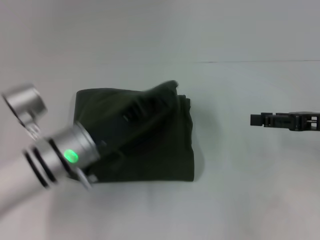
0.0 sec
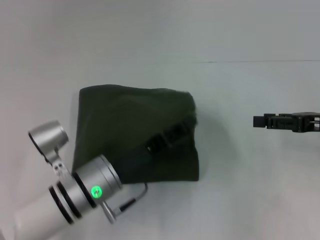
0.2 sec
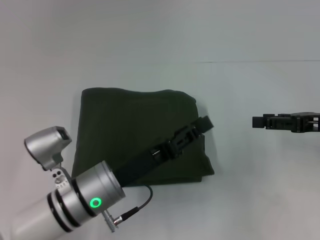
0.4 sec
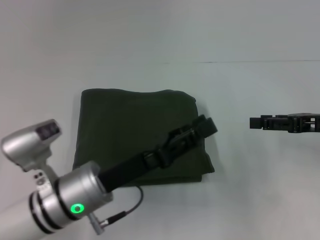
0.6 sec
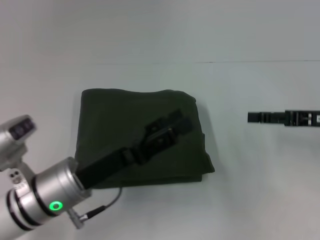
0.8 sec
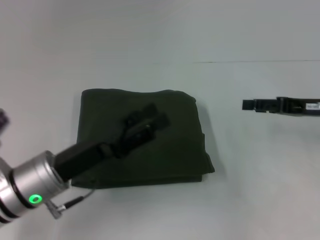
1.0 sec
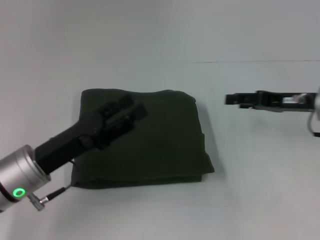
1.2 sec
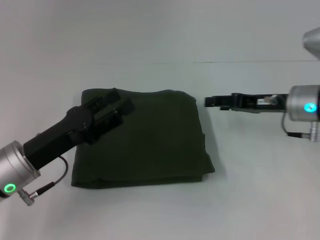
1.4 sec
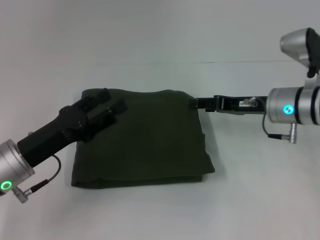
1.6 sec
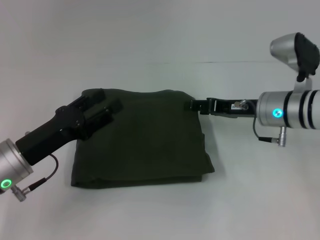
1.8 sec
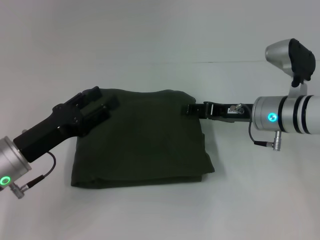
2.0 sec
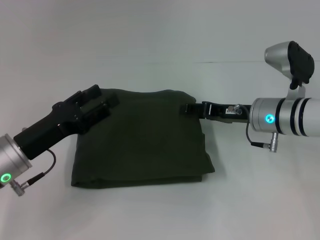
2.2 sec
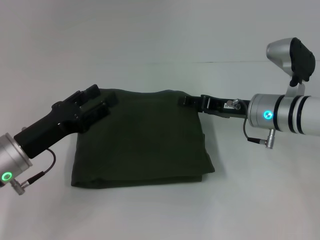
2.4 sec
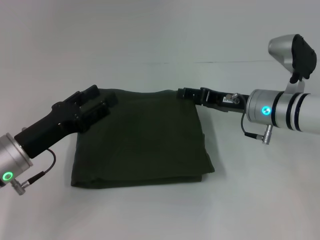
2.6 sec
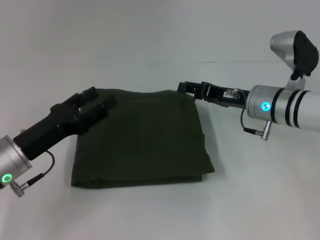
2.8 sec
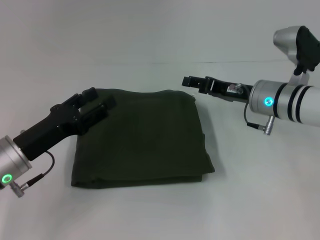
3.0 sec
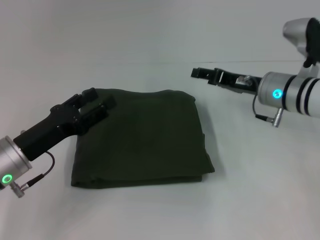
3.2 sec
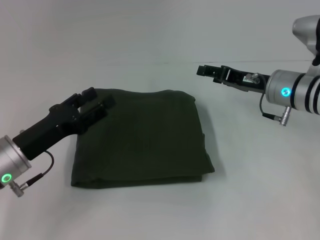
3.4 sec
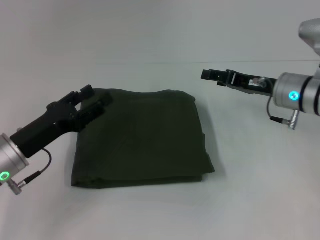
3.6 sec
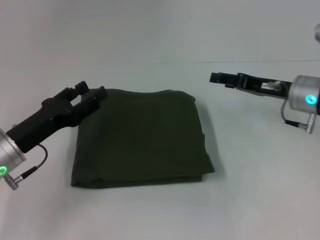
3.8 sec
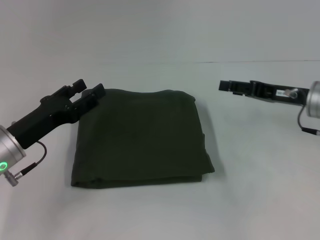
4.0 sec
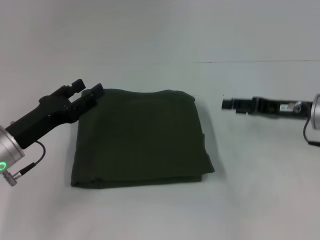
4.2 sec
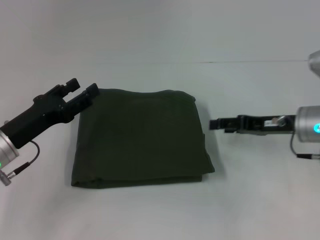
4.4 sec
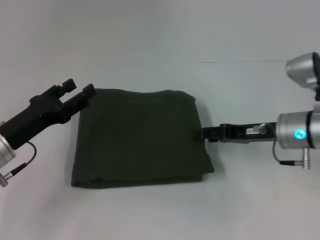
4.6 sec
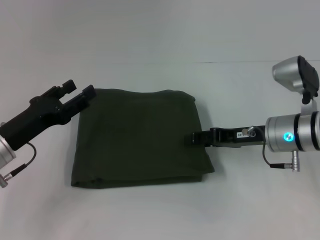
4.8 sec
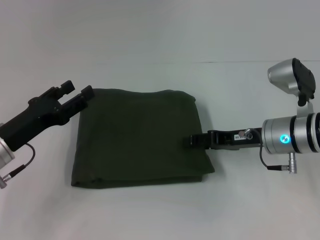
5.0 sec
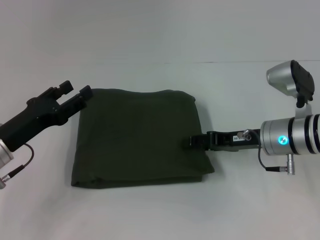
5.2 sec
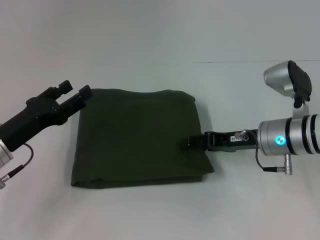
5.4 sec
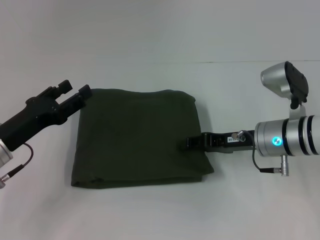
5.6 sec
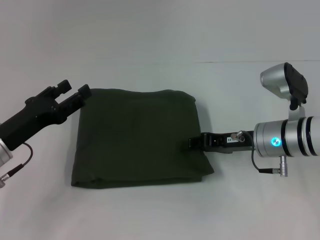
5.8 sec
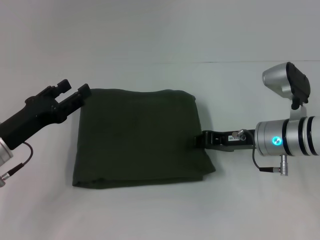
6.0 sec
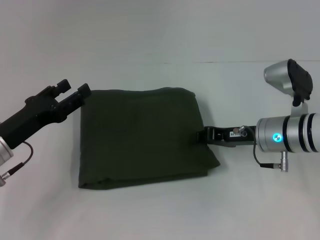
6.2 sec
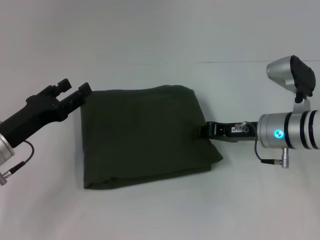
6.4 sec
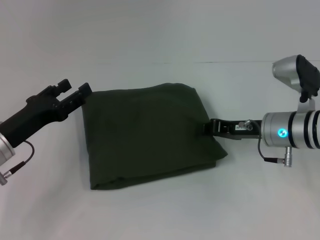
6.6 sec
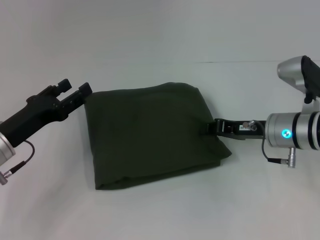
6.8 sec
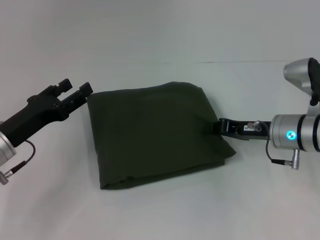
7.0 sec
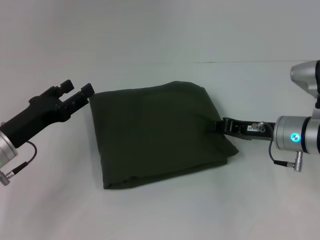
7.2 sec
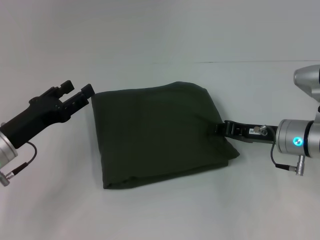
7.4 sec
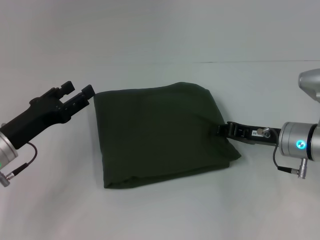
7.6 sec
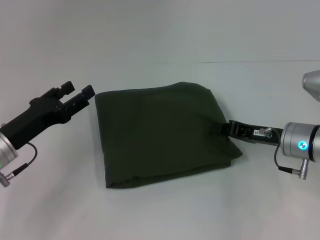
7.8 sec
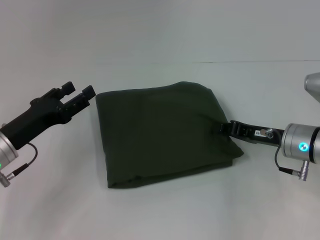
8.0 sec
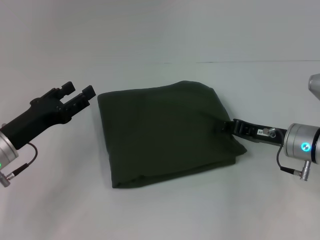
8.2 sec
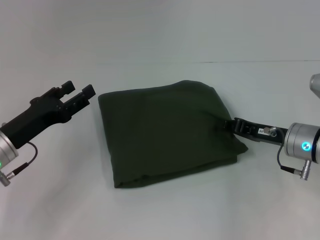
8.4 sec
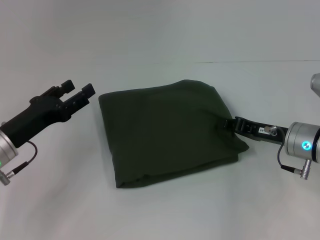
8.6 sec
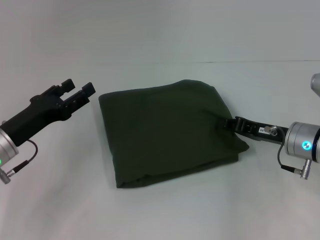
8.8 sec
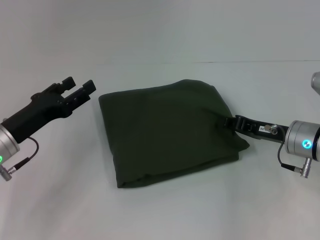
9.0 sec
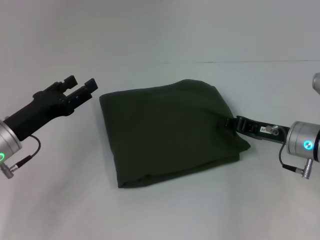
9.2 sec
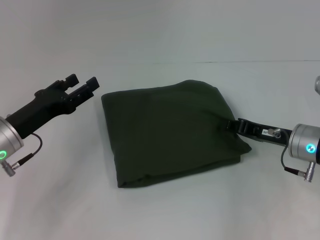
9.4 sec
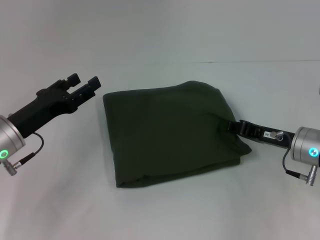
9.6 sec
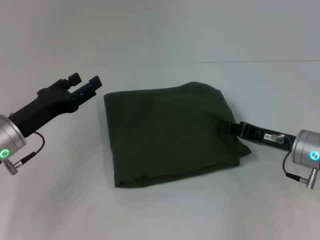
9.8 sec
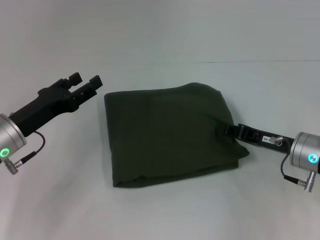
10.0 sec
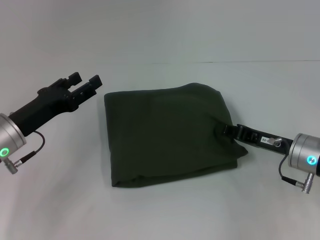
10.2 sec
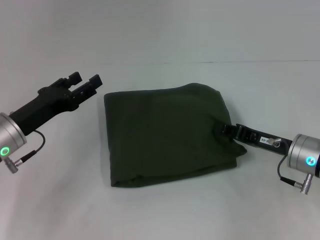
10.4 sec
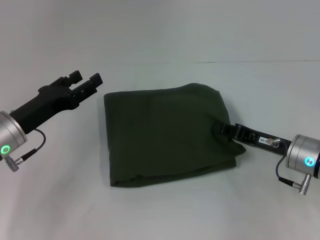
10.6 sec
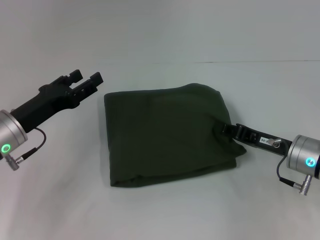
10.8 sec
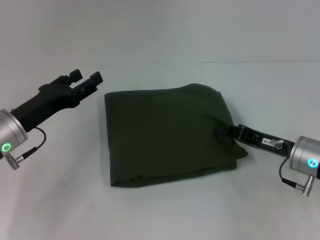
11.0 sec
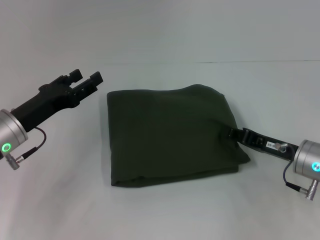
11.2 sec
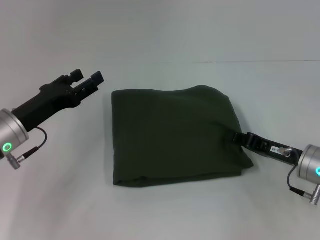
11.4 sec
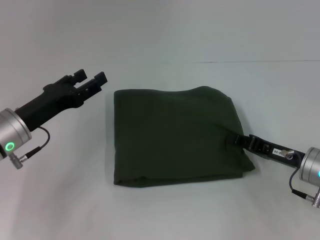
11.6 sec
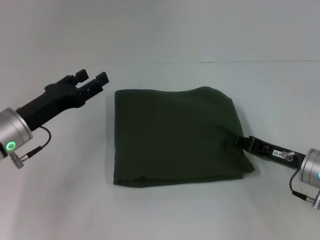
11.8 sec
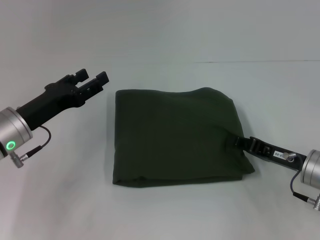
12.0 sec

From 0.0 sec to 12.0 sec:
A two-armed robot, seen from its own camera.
From 0.0 sec to 1.6 sec: The right gripper moves to the left and forward, roughly 10 cm; the left gripper heads to the left, covering roughly 5 cm, and opens.
From 1.6 sec to 3.0 sec: The grippers move only a little.
From 3.0 sec to 4.4 sec: The right gripper travels to the right by some 5 cm.
From 4.4 sec to 6.0 sec: The right gripper heads to the left, covering some 5 cm.
From 6.0 sec to 9.0 sec: The grippers move only a little.
From 9.0 sec to 12.0 sec: The grippers move only a little.

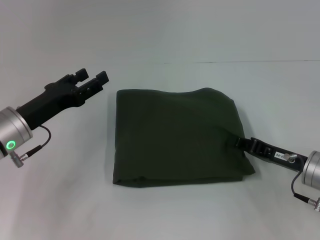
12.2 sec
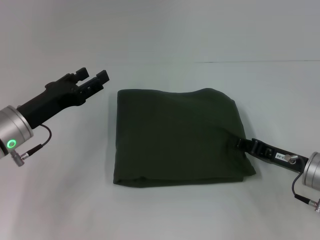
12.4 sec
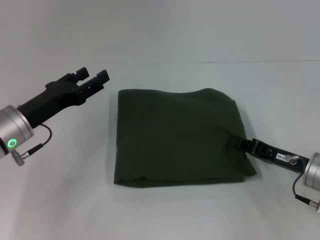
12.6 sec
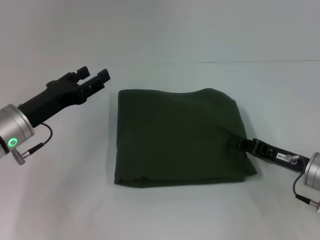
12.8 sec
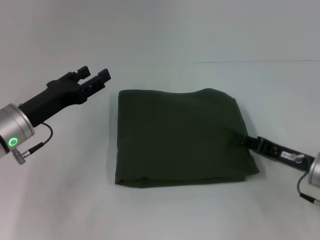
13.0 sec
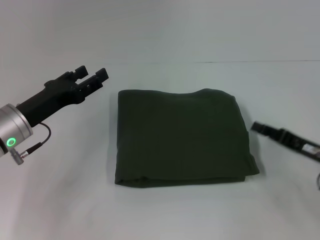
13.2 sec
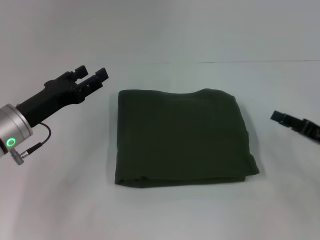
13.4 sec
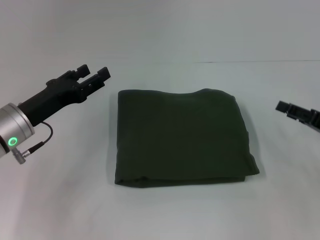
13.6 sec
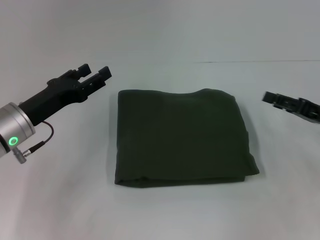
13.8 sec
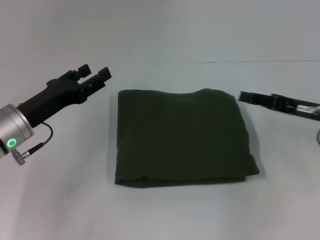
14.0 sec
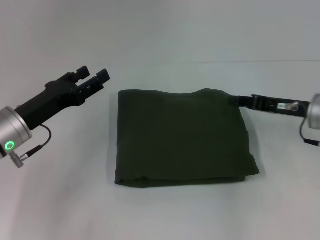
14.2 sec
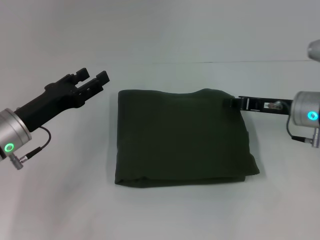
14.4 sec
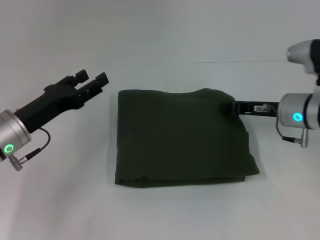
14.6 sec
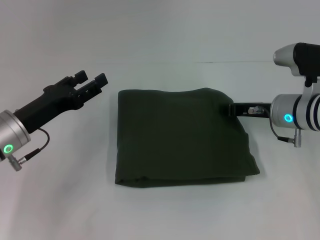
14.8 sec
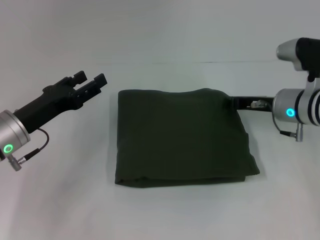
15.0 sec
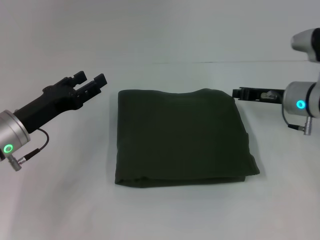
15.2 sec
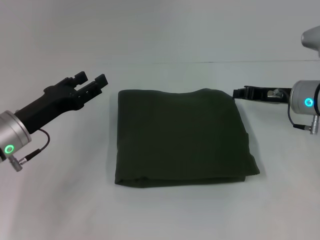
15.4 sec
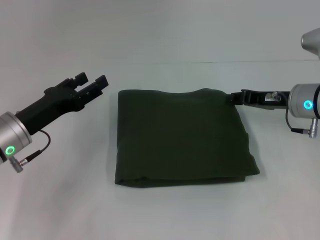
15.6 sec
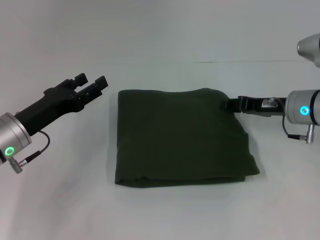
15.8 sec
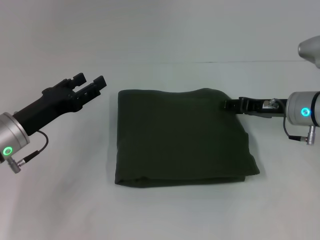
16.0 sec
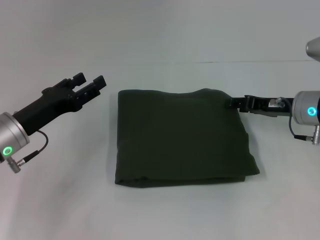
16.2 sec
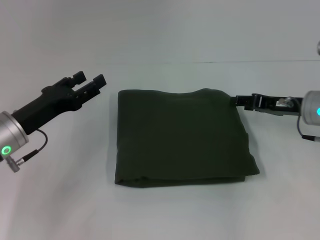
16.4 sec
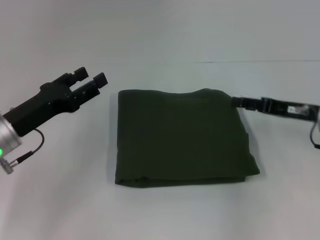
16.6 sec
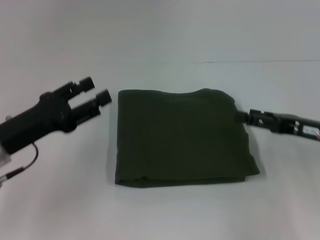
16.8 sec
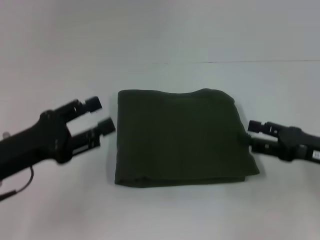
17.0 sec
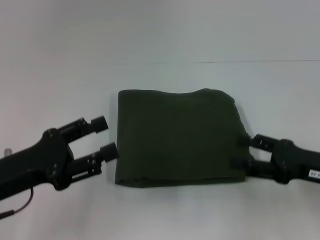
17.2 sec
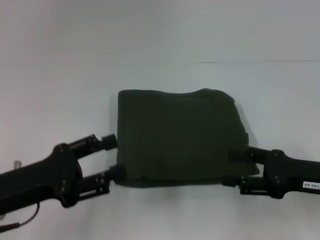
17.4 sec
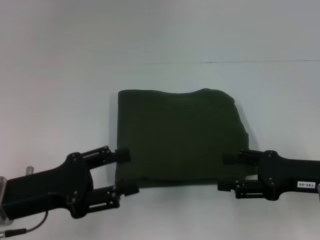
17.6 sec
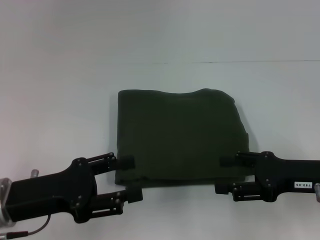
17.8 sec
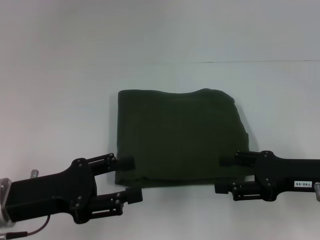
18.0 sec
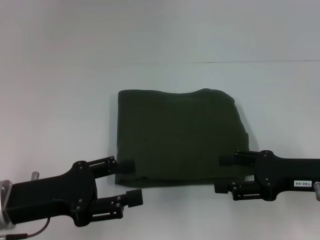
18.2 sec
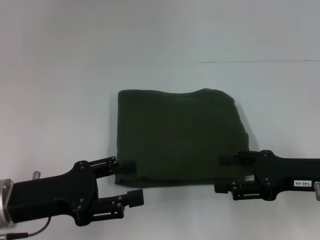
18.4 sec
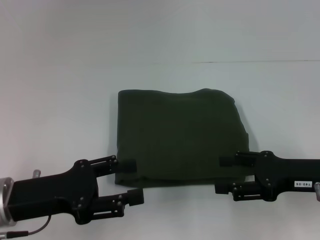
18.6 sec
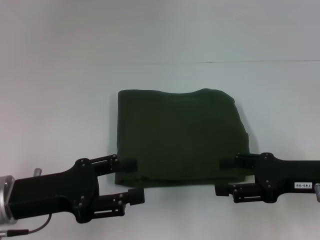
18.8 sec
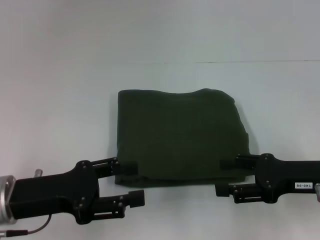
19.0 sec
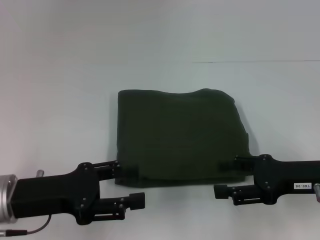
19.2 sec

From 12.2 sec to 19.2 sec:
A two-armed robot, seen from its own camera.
From 12.2 sec to 13.6 sec: The right gripper heads to the right, covering some 10 cm, and opens its fingers.
From 13.6 sec to 15.0 sec: The right gripper is displaced to the left and forward by some 15 cm, and closes up.
From 15.0 sec to 16.4 sec: The right gripper opens up.
From 16.4 sec to 17.8 sec: The grippers both shift backward by about 10 cm.
From 17.8 sec to 19.2 sec: The grippers stay close to where they were, moving slightly.
